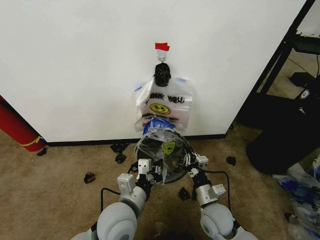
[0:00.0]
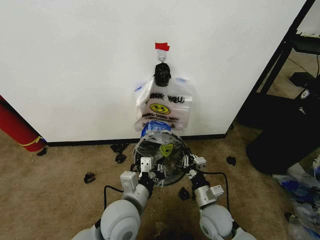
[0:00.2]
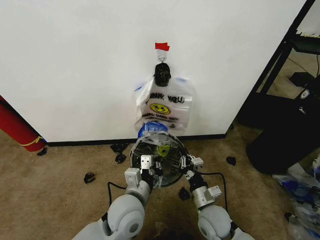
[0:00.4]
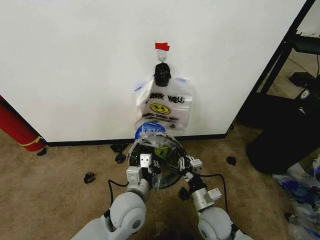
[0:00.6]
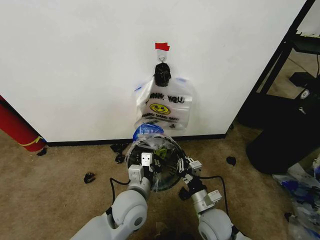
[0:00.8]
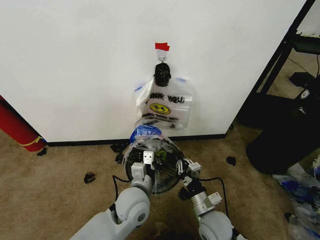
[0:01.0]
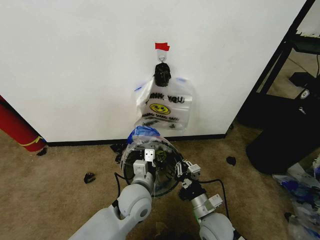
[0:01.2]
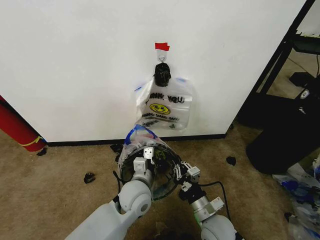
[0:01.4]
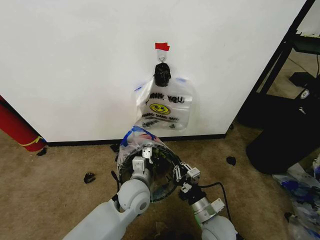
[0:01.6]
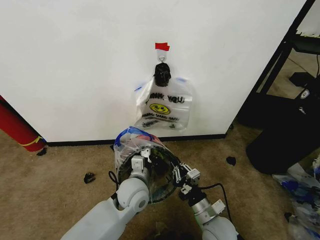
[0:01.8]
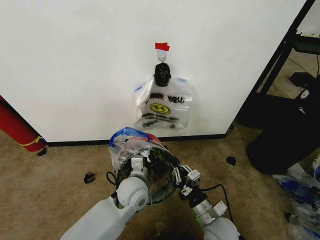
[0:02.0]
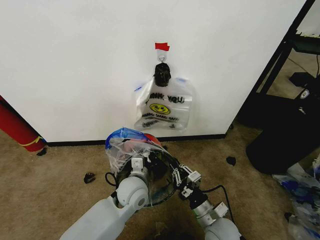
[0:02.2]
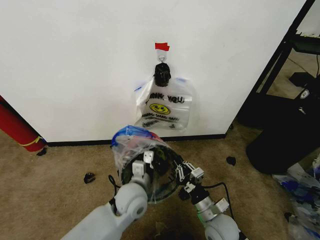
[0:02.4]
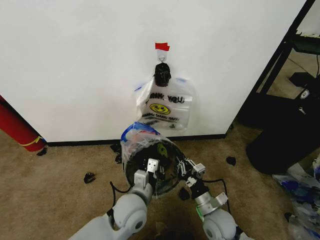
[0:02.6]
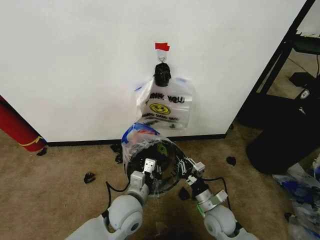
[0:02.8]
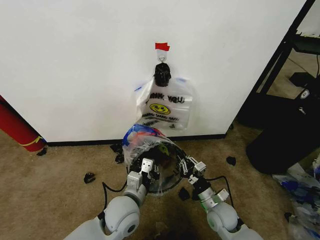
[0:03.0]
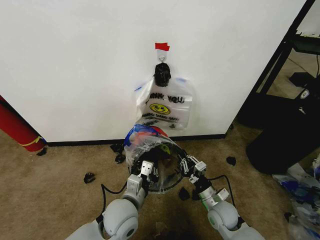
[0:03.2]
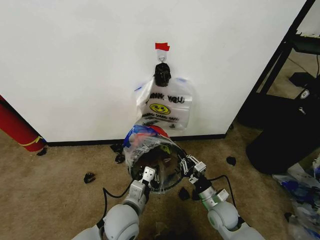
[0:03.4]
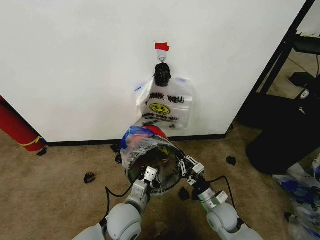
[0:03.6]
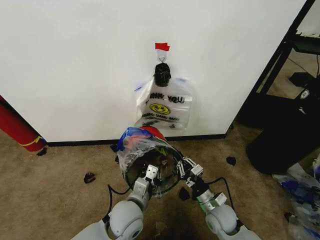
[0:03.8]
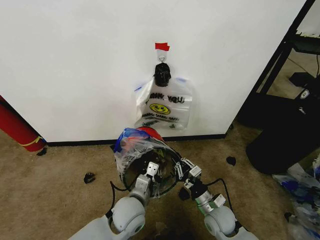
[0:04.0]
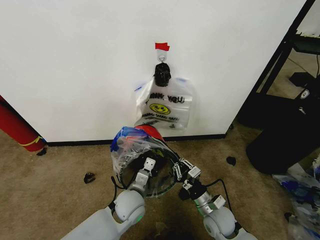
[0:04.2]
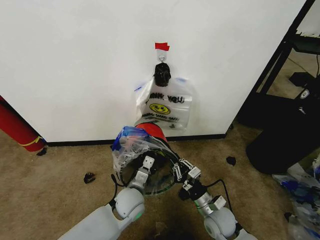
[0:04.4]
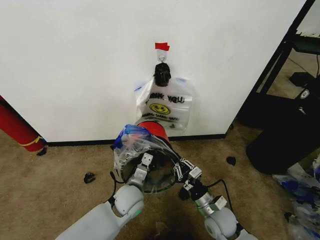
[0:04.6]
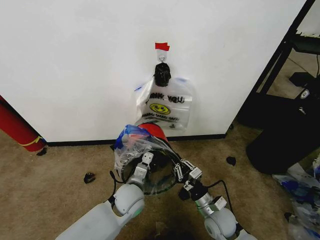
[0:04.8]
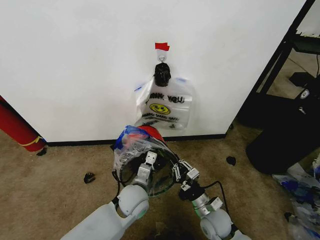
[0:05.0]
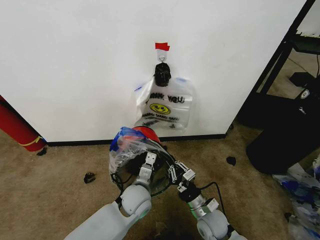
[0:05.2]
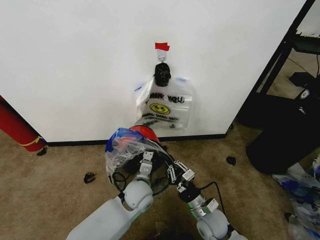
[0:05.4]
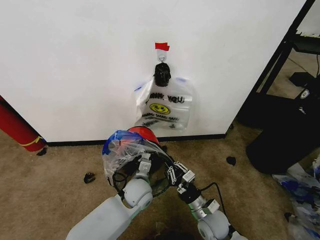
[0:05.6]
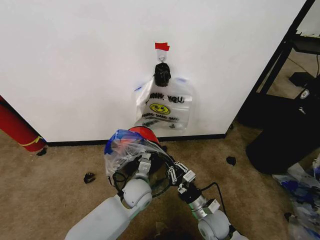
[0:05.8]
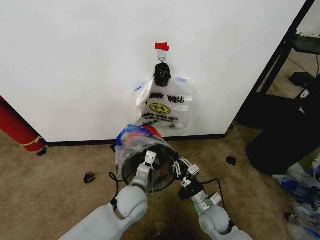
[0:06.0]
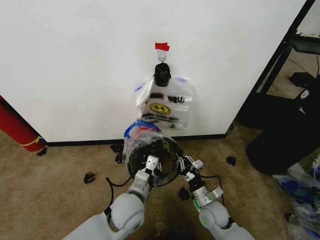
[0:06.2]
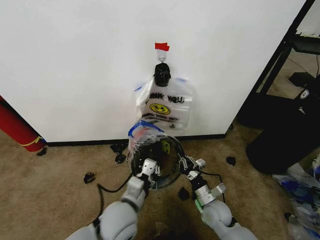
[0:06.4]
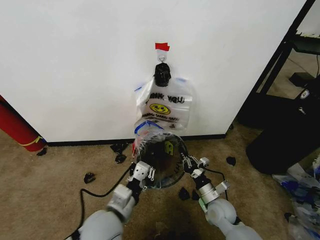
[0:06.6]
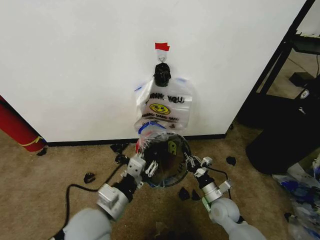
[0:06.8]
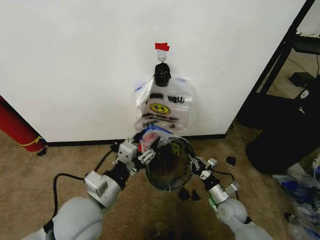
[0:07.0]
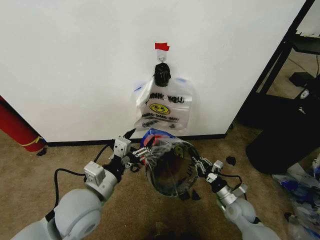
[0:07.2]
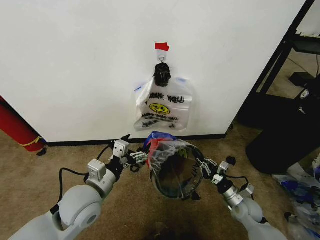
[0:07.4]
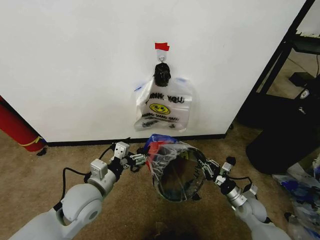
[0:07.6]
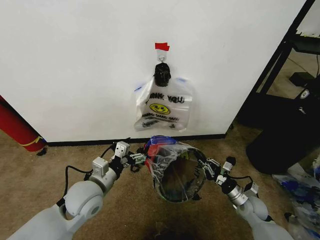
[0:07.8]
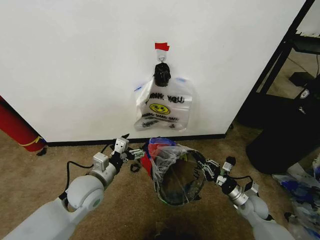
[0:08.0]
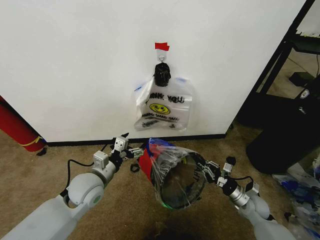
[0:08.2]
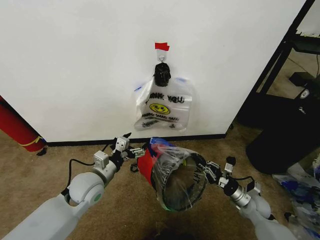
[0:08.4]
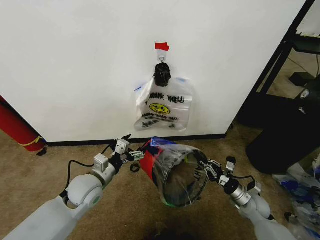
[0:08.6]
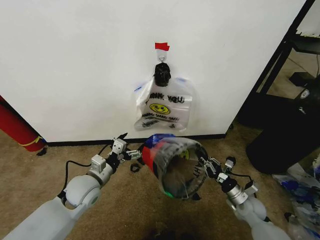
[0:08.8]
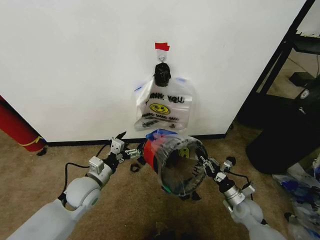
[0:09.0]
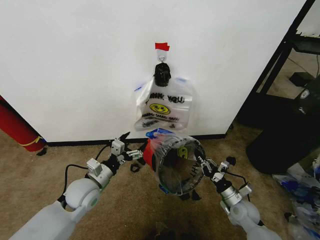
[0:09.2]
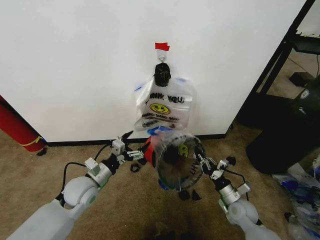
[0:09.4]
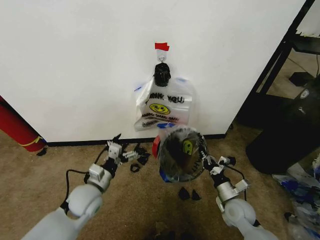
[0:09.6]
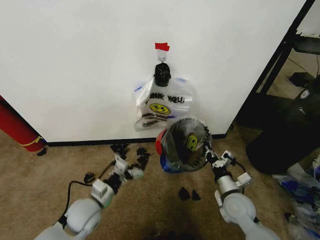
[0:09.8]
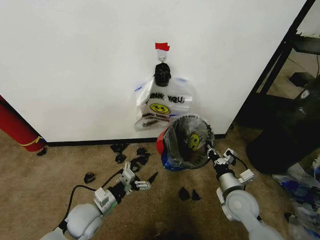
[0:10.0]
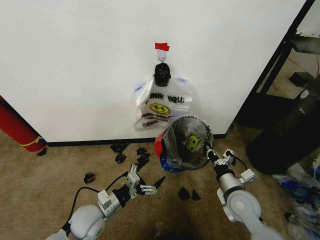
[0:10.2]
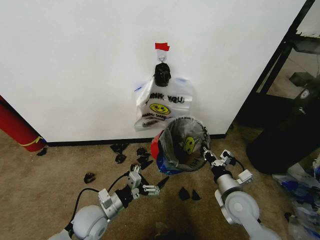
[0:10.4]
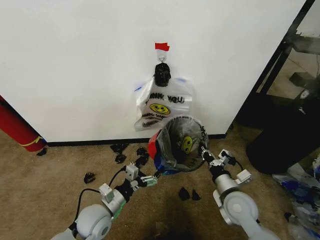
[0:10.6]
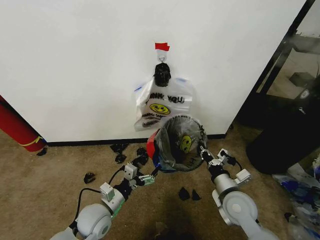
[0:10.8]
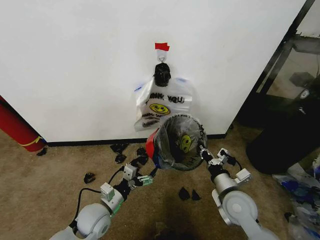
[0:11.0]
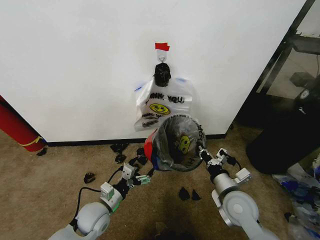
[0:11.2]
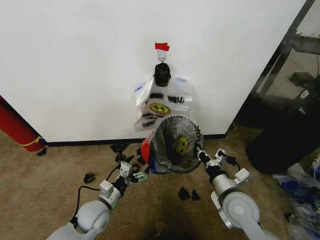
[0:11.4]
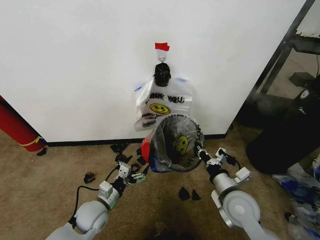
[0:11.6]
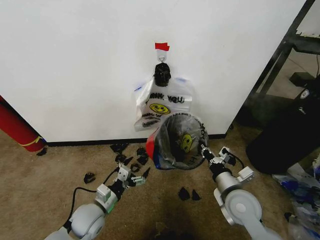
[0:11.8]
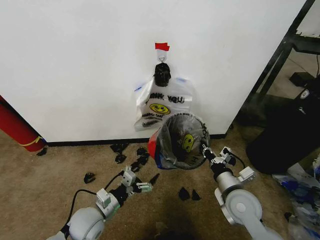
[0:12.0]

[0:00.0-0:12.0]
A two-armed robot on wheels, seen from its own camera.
Task of the whole recording: Pick up the garbage bag from the wall and place it over the trash bin.
0:00.0 to 0:01.6: The left gripper shifts approximately 10 cm forward.
0:01.6 to 0:03.0: The left gripper moves backward, some 5 cm. The right gripper shifts about 5 cm forward.
0:03.0 to 0:04.4: The left gripper heads downward and forward, covering roughly 10 cm.
0:04.4 to 0:06.0: The grippers move only a little.
0:06.0 to 0:07.6: The left gripper is displaced to the left and upward by about 15 cm, and opens its fingers; the right gripper is displaced to the right by roughly 15 cm.
0:07.6 to 0:09.0: The left gripper travels downward by approximately 5 cm.
0:09.0 to 0:10.4: The right gripper moves upward and to the left, some 15 cm. Meanwhile the left gripper goes some 10 cm backward and downward.

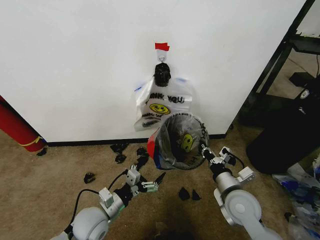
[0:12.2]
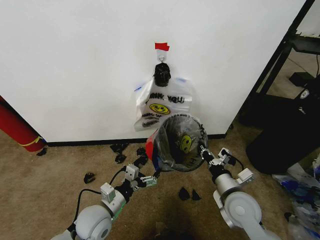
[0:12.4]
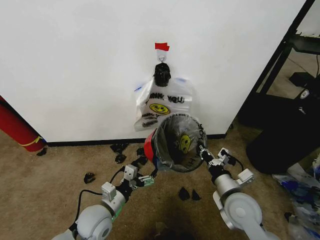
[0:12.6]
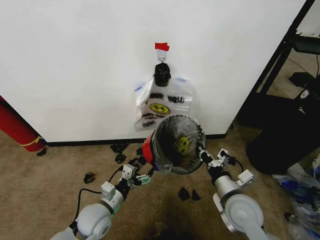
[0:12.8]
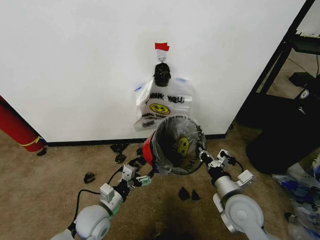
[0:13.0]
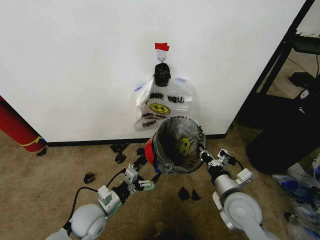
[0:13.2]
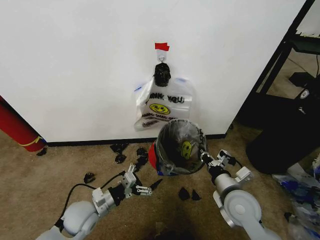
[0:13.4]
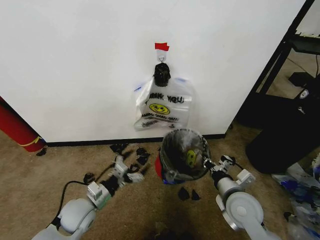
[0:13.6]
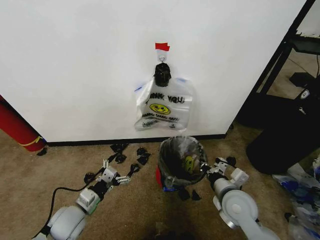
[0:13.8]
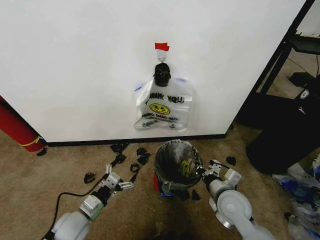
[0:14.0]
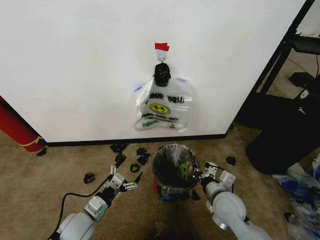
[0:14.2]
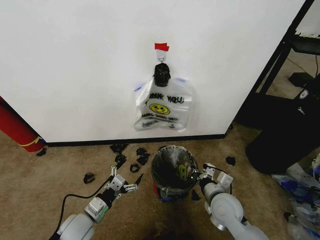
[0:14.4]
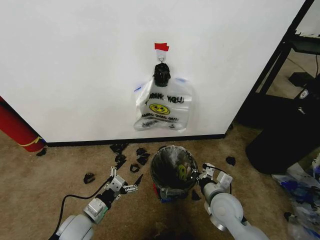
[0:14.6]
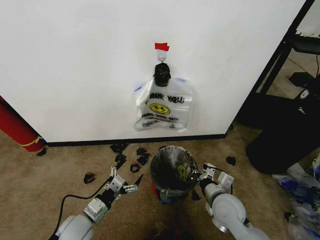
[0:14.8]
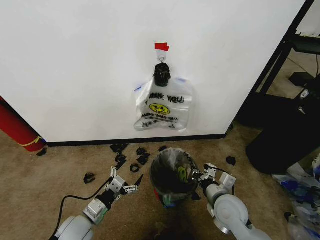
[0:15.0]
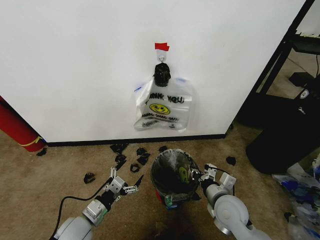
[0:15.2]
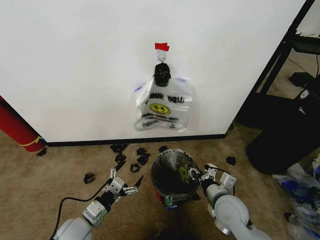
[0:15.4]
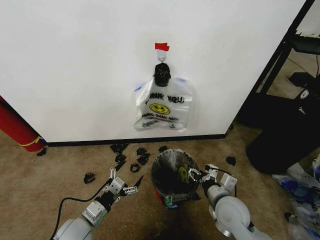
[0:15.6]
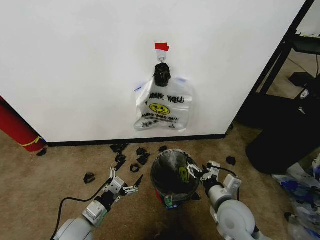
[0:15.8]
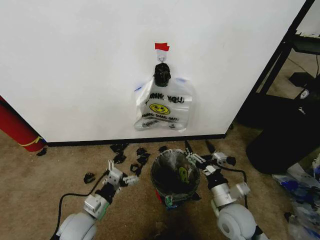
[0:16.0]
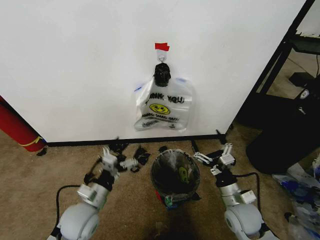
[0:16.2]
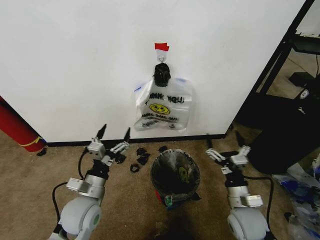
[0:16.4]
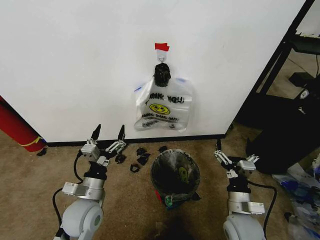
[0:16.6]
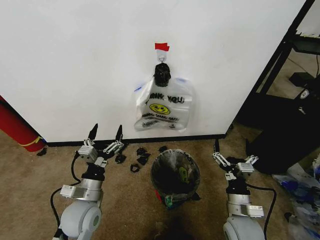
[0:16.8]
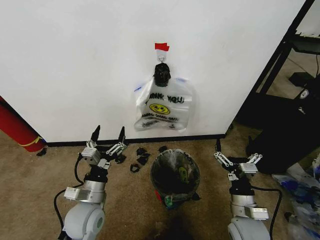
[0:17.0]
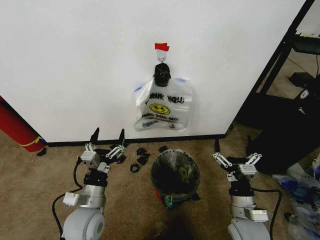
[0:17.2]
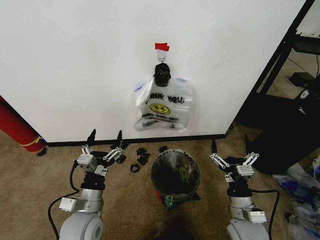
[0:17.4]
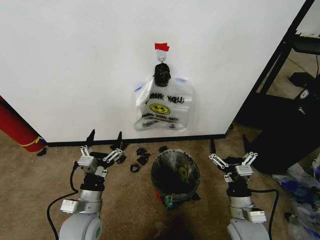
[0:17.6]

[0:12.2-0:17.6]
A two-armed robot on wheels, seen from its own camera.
Task of the whole recording: Pick up the garbage bag from the wall and place it over the trash bin.
0:12.2 to 0:13.6: The left gripper shifts by some 5 cm.
0:13.6 to 0:15.0: The left gripper shifts by approximately 5 cm.
0:15.0 to 0:16.2: The right gripper opens. Meanwhile the left gripper heads upward, covering roughly 5 cm.

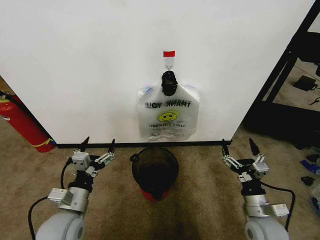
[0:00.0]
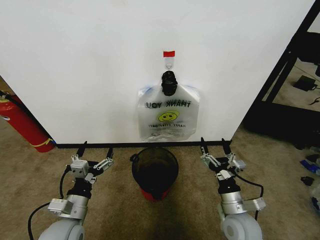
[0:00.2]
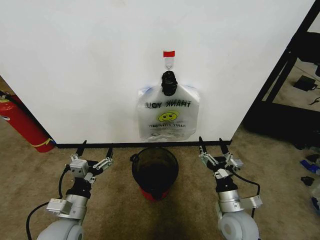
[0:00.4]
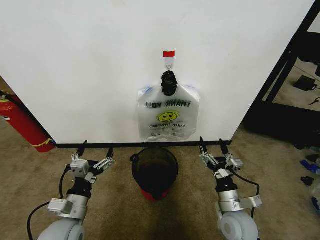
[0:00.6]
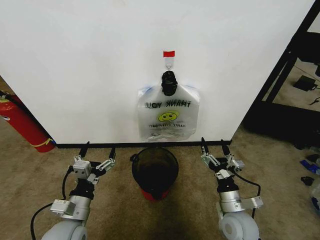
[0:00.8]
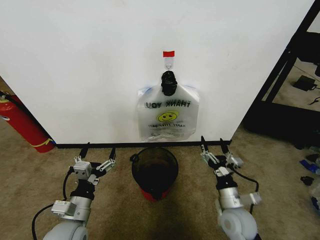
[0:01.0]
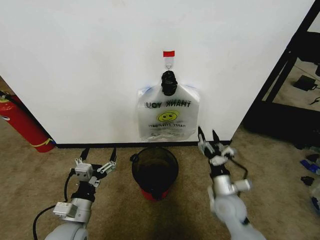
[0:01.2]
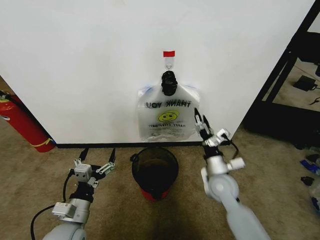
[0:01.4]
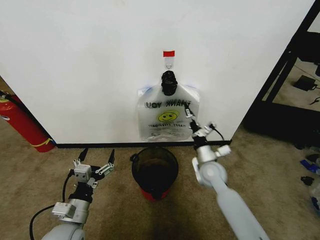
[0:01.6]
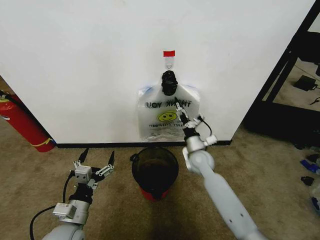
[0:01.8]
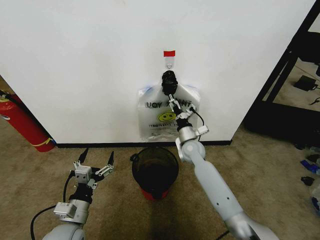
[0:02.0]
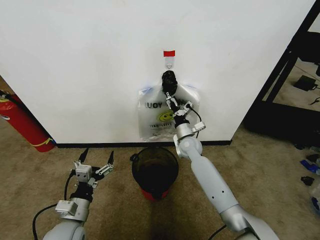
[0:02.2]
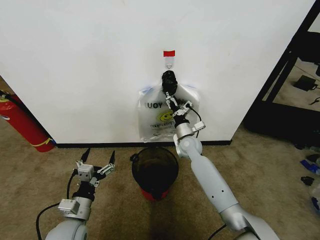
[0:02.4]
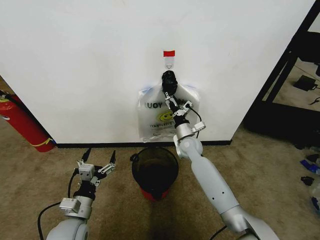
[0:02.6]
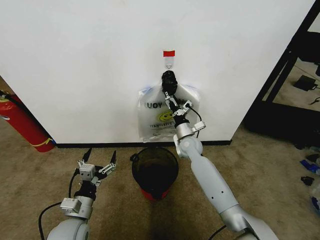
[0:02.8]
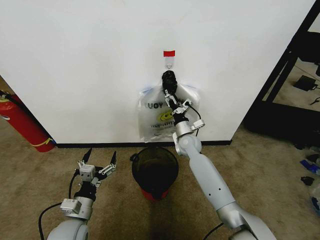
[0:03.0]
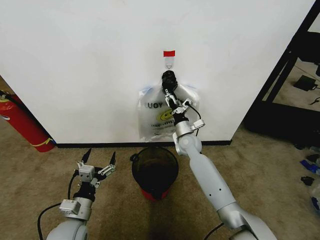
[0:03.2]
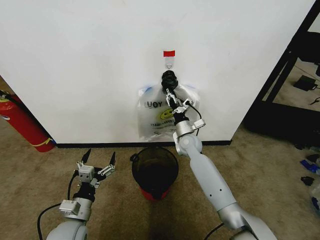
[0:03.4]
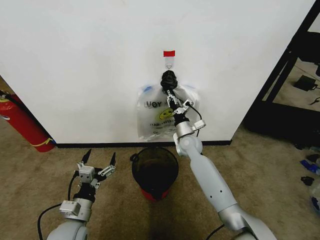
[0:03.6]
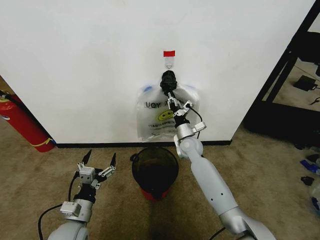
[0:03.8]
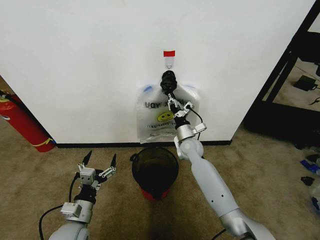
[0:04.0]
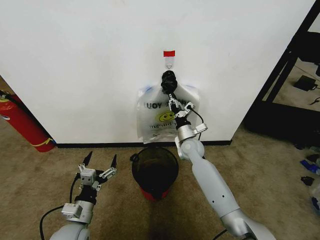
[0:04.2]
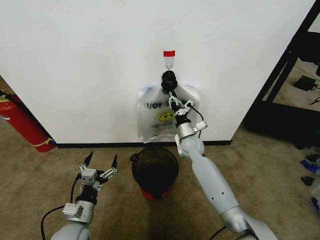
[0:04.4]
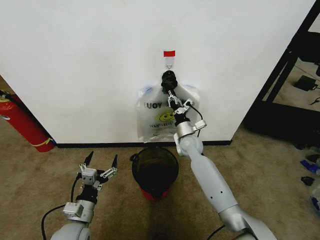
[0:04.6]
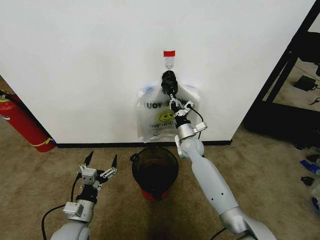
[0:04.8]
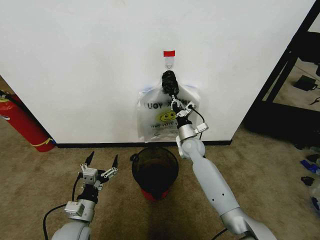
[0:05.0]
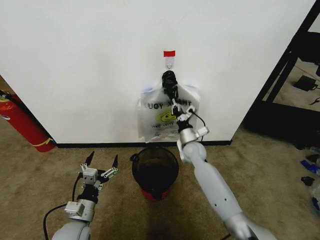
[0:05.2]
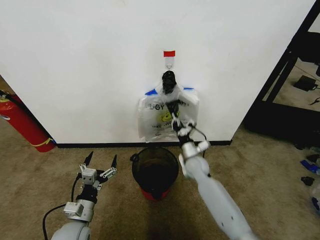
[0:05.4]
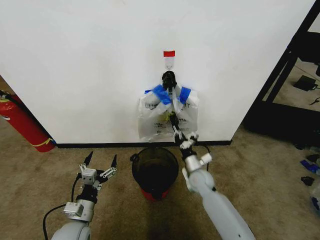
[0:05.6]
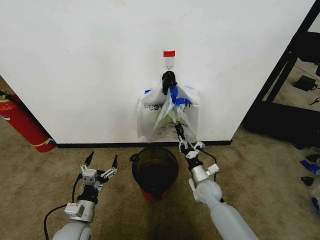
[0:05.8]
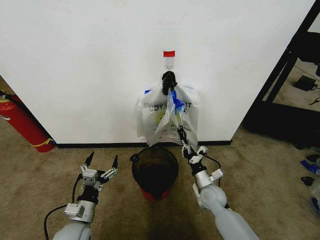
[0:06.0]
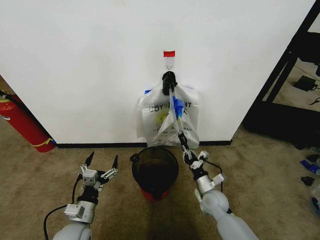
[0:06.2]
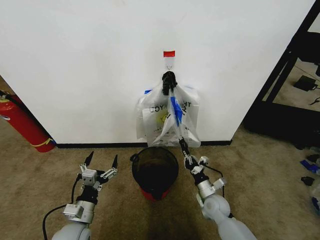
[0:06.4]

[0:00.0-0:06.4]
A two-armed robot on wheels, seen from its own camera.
Task of the whole recording: Pick up the garbage bag from the wall and place it over the trash bin.
0:01.6 to 0:03.2: The right gripper shifts about 15 cm forward and to the left.
0:03.2 to 0:04.8: The right gripper closes.
0:04.8 to 0:06.4: The right gripper heads backward, downward and to the right, covering about 25 cm.
